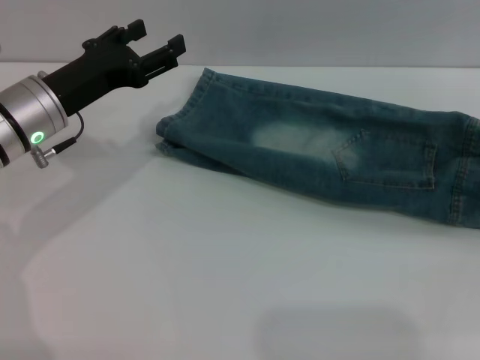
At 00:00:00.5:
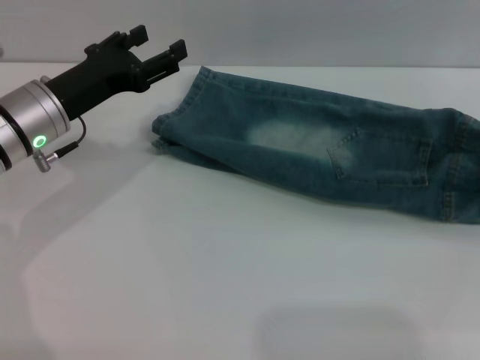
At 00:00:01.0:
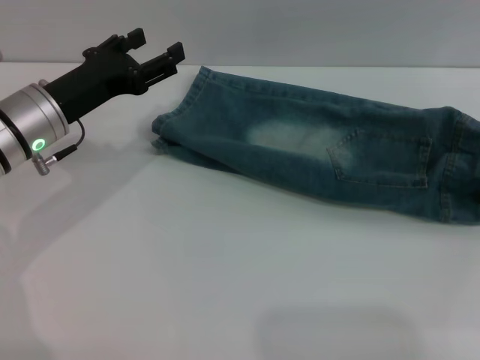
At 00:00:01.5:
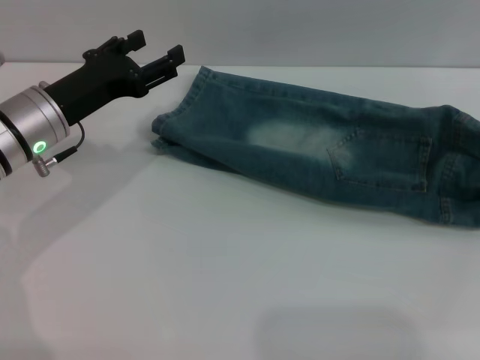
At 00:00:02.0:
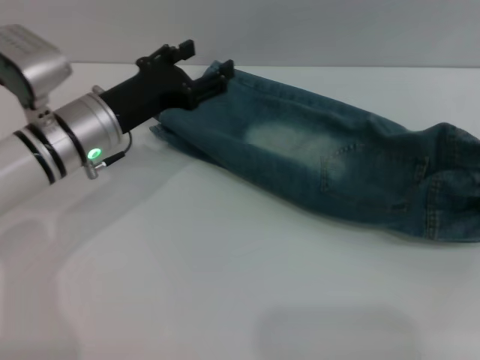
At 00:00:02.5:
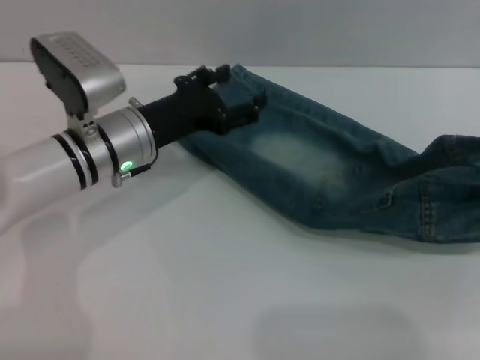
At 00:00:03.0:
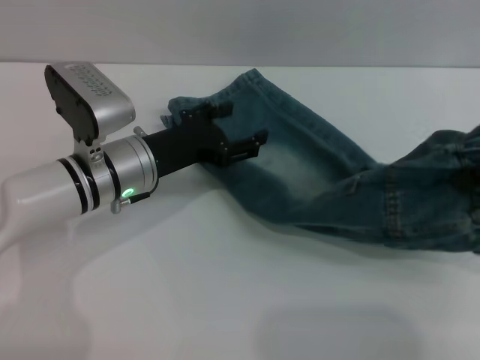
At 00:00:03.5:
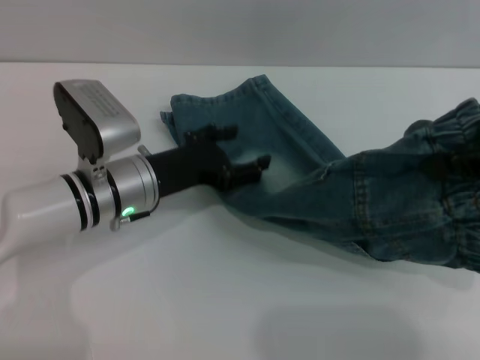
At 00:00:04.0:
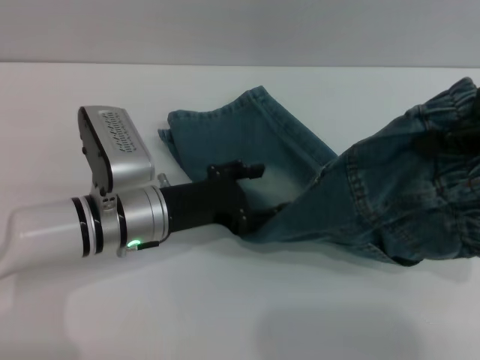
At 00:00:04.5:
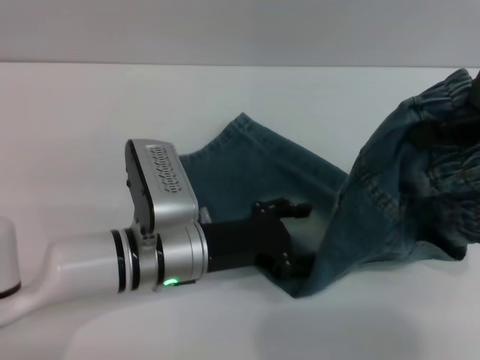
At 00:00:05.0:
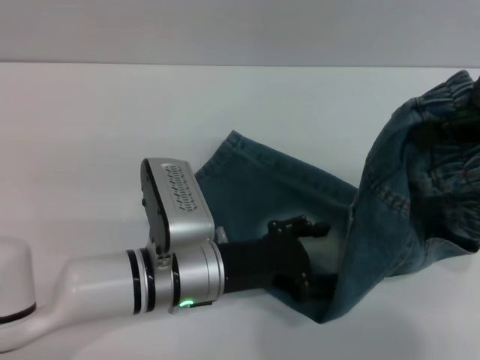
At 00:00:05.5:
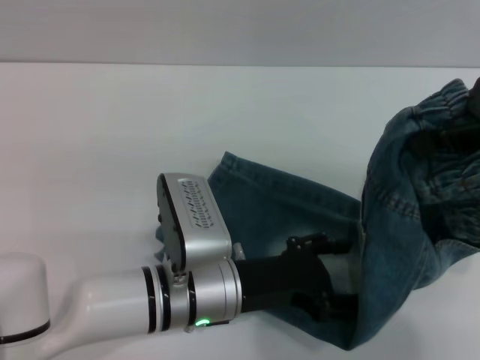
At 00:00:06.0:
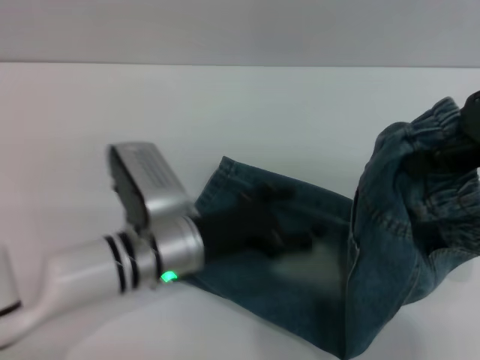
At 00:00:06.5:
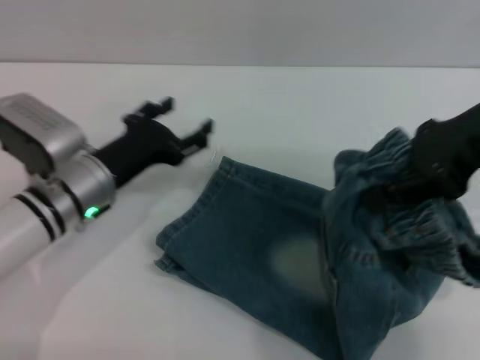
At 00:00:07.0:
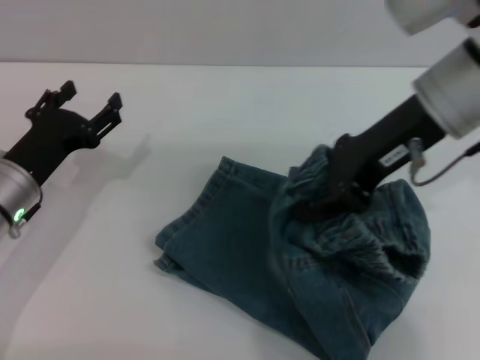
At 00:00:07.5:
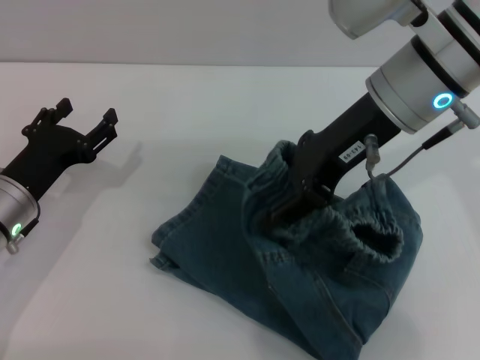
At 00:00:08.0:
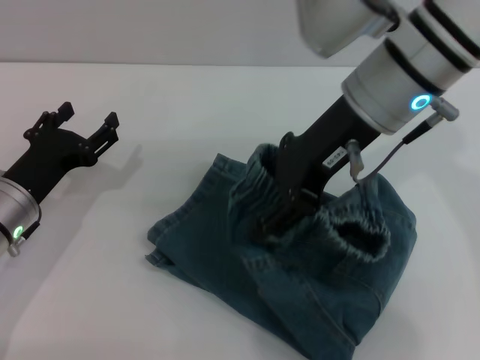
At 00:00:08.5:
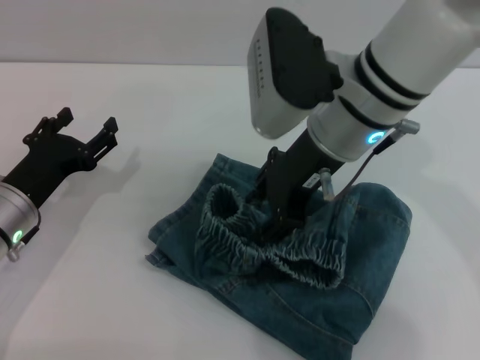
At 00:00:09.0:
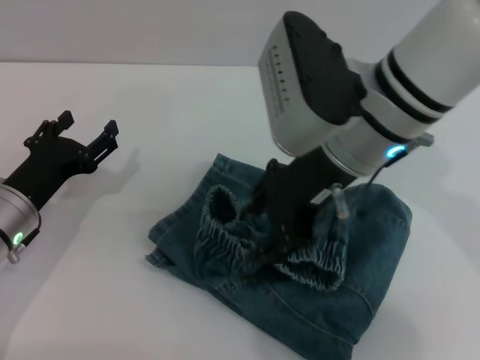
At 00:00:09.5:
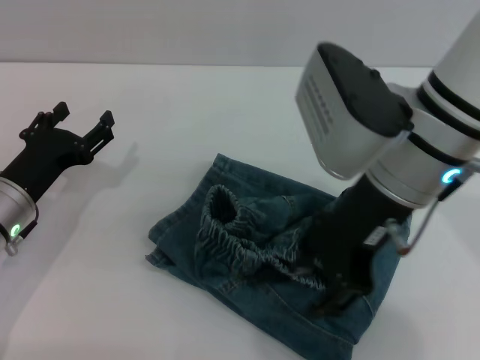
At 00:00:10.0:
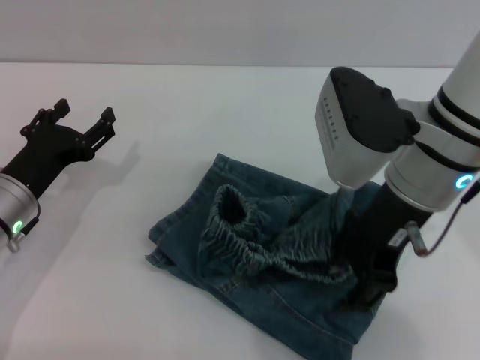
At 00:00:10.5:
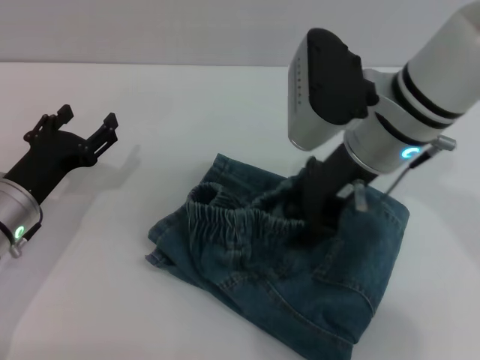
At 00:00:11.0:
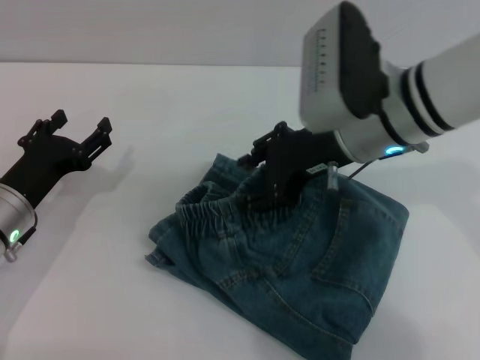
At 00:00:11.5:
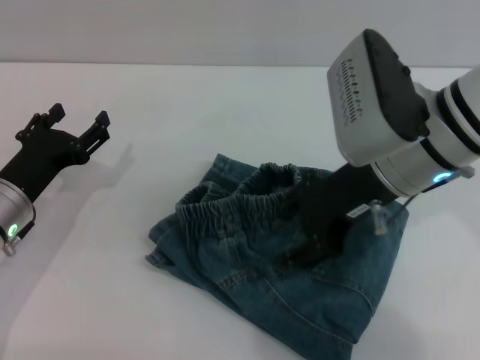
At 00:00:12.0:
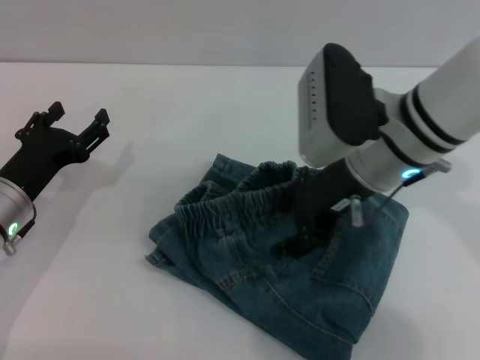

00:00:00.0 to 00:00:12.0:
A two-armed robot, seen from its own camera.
Step, 00:00:00.0 to 00:00:10.5: Fold the pants from right to left with the right gripper.
00:00:00.0 to 00:00:02.0: The right gripper changes place by approximately 5 cm, and closes up.
00:00:02.0 to 00:00:04.0: The left gripper moves backward, roughly 5 cm; the right gripper travels upward and to the left by approximately 15 cm.
00:00:06.0 to 00:00:08.0: Both grippers move to the left, roughly 15 cm. The right gripper opens its fingers.
00:00:08.0 to 00:00:10.0: The right gripper changes place by roughly 5 cm.

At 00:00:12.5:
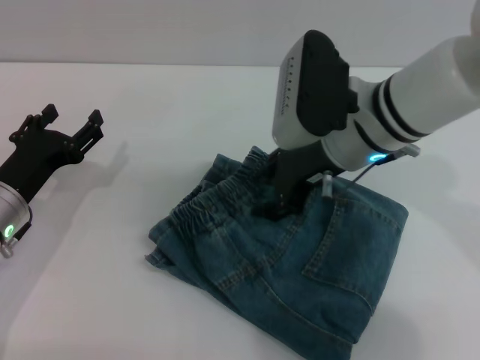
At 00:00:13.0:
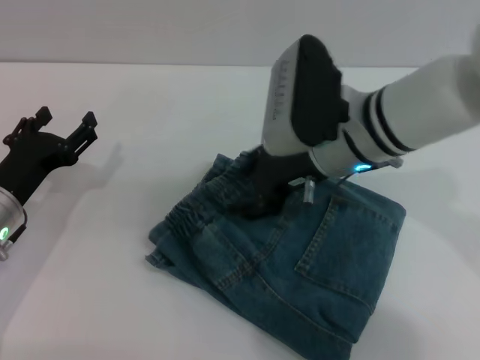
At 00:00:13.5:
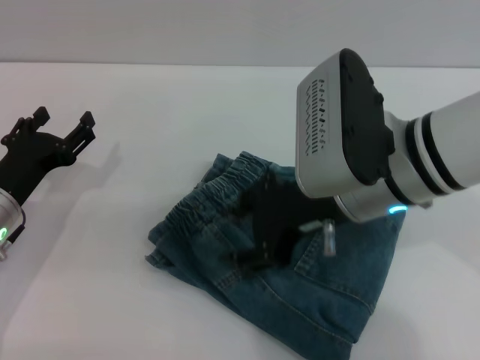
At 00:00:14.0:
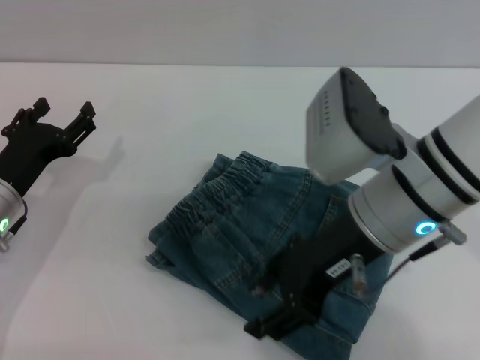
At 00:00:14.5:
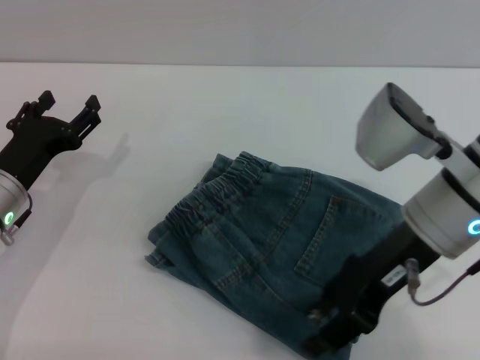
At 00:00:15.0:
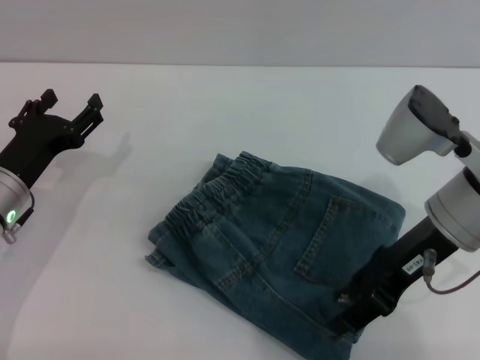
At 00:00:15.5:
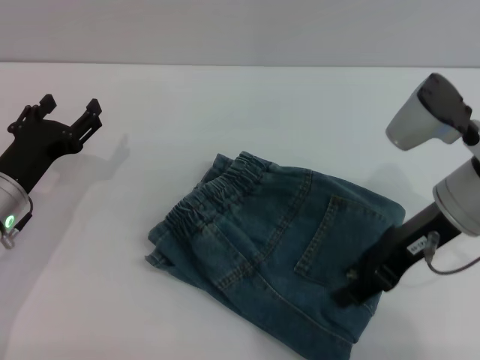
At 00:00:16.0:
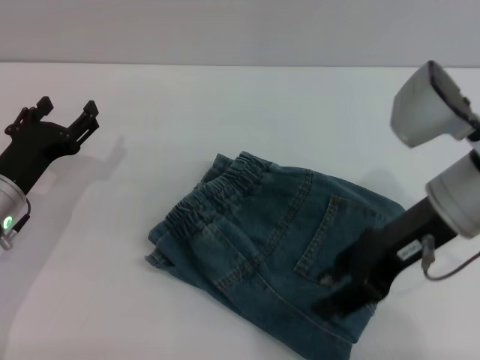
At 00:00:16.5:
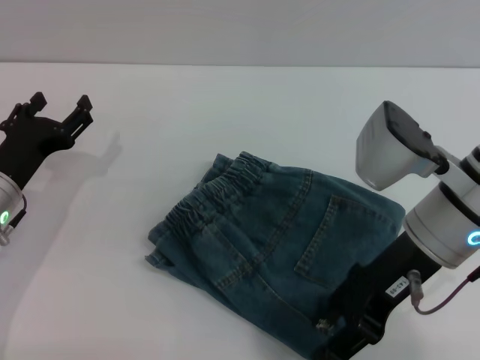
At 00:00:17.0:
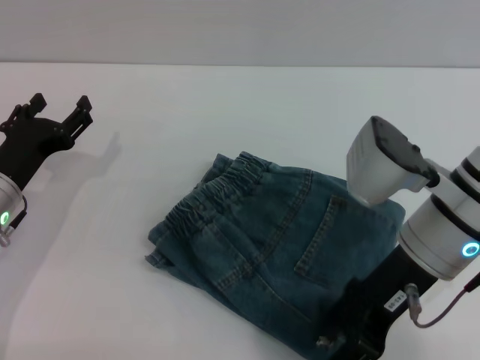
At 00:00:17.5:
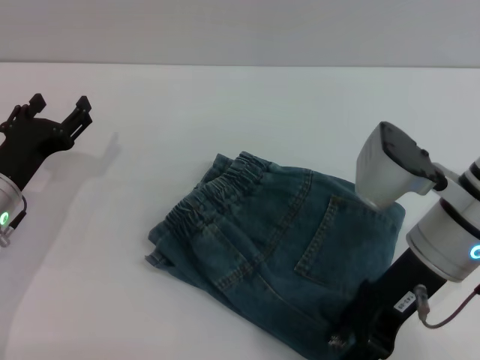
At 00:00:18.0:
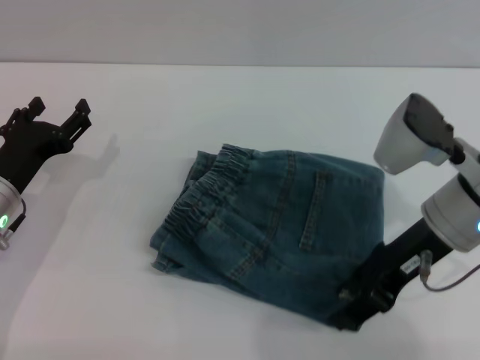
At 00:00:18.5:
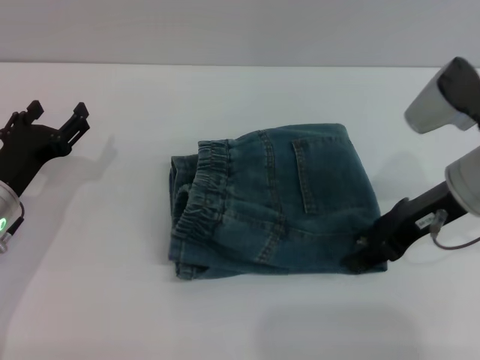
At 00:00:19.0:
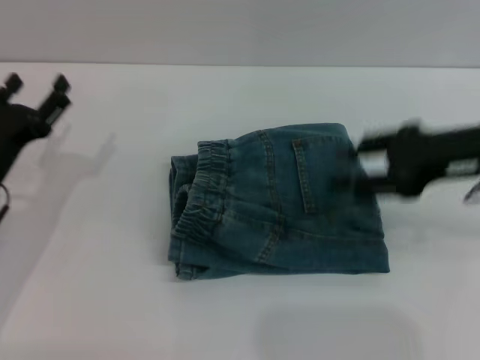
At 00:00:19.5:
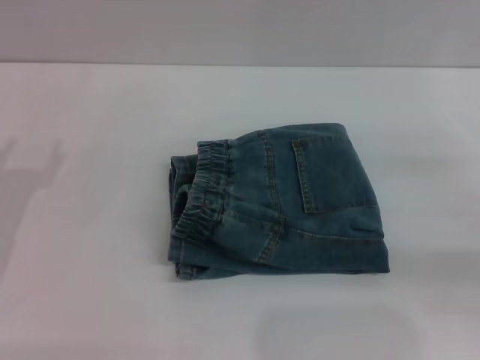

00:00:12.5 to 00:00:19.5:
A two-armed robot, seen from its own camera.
Step, 00:00:12.5 to 00:00:18.5: Place the folded trousers onto the center area with the right grippers.
00:00:12.5 to 00:00:14.5: The right gripper moves backward and to the right, about 10 cm.
00:00:14.5 to 00:00:17.5: There are only small adjustments of the grippers.
00:00:17.5 to 00:00:19.5: The left gripper is displaced backward by approximately 5 cm, while the right gripper goes some 20 cm to the right.
